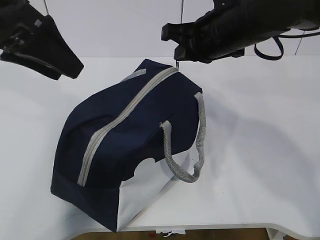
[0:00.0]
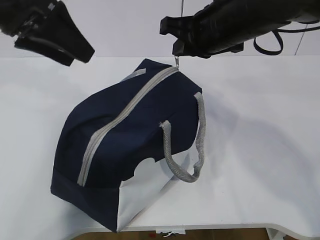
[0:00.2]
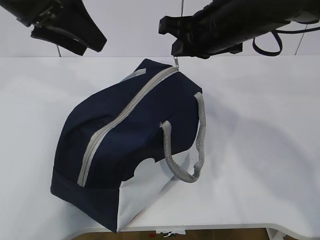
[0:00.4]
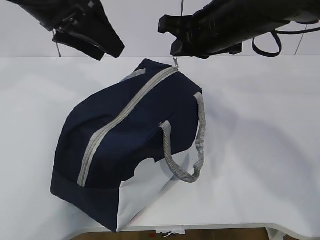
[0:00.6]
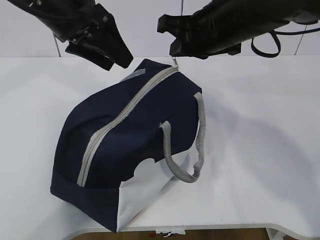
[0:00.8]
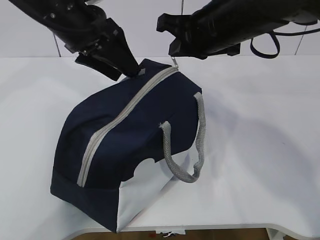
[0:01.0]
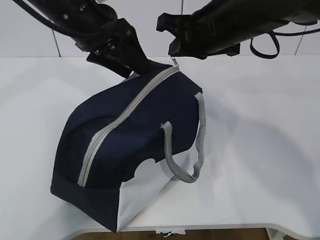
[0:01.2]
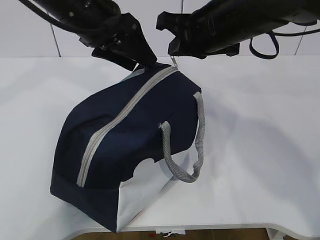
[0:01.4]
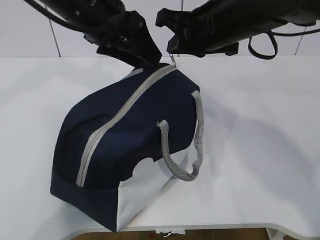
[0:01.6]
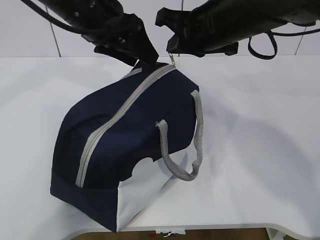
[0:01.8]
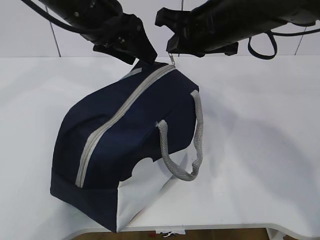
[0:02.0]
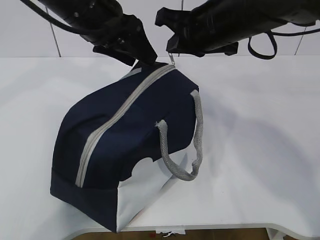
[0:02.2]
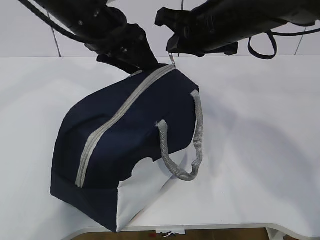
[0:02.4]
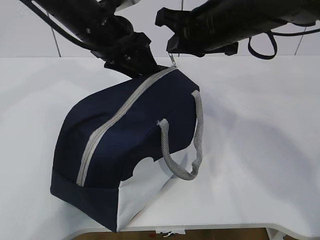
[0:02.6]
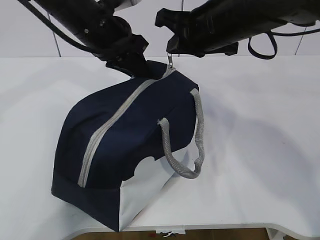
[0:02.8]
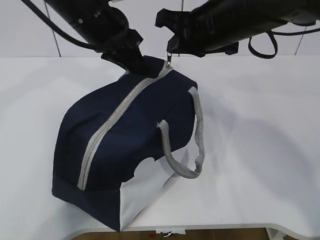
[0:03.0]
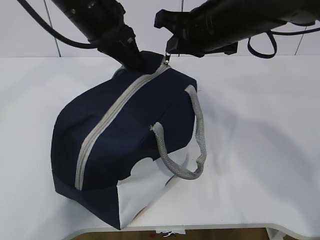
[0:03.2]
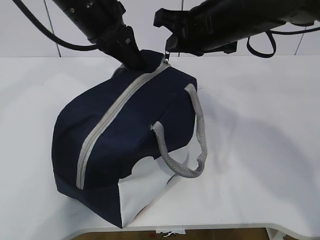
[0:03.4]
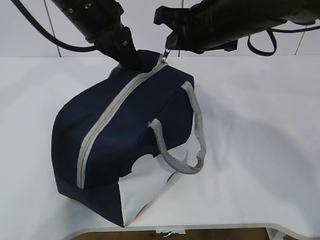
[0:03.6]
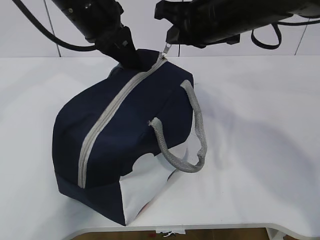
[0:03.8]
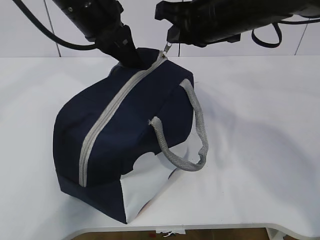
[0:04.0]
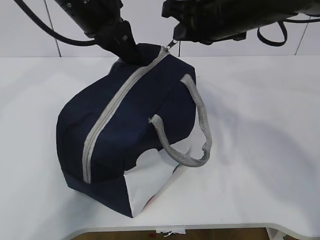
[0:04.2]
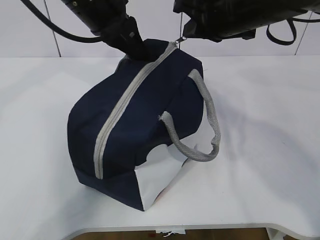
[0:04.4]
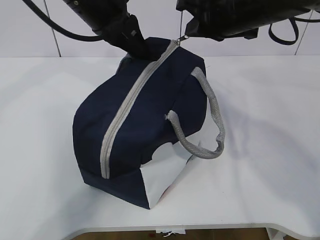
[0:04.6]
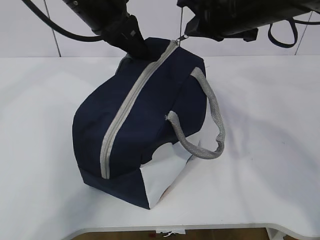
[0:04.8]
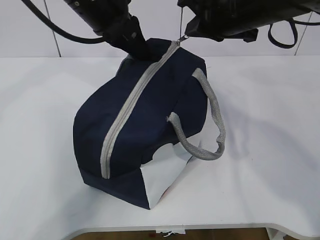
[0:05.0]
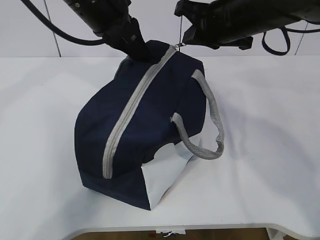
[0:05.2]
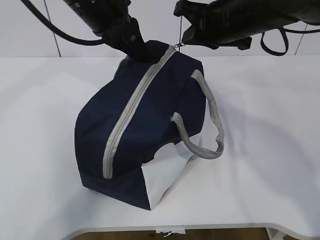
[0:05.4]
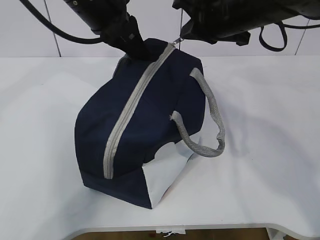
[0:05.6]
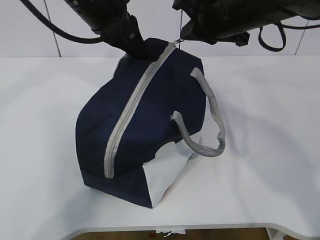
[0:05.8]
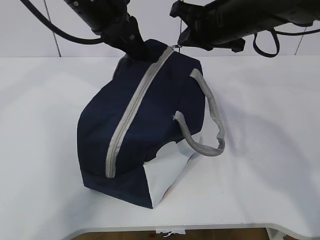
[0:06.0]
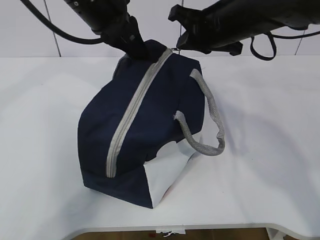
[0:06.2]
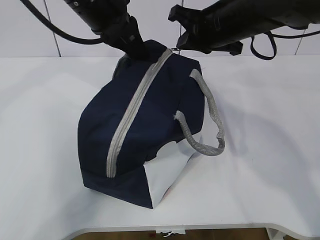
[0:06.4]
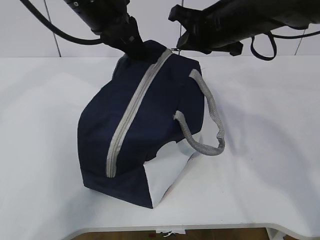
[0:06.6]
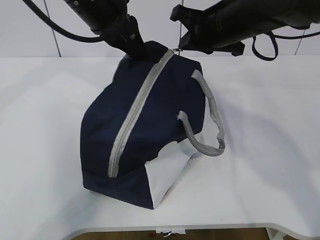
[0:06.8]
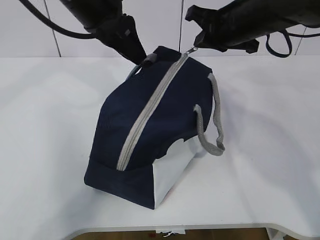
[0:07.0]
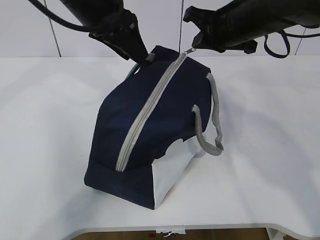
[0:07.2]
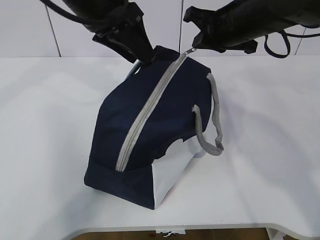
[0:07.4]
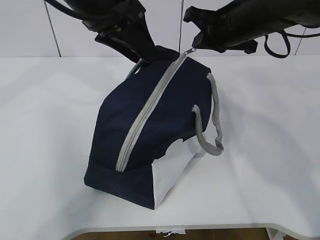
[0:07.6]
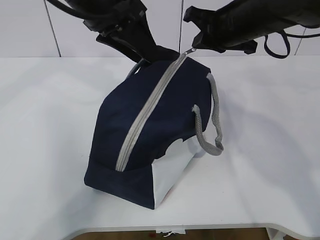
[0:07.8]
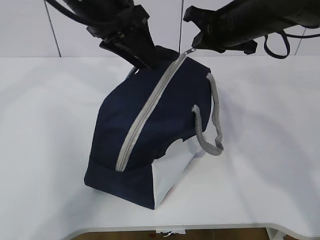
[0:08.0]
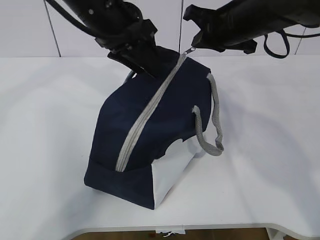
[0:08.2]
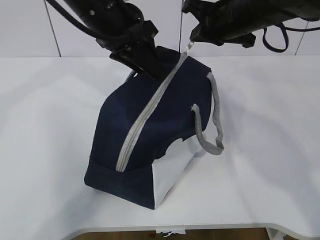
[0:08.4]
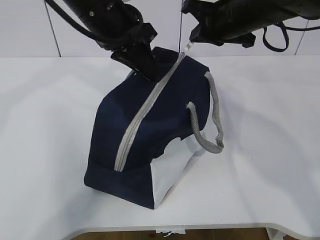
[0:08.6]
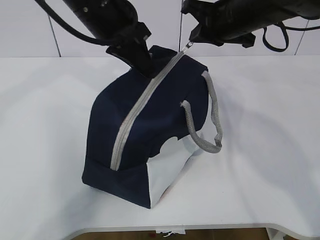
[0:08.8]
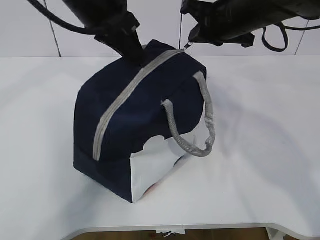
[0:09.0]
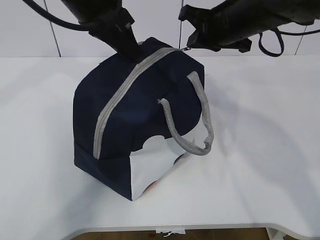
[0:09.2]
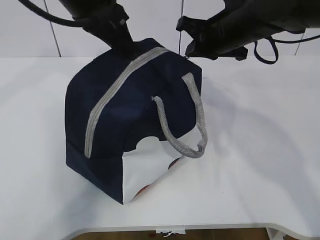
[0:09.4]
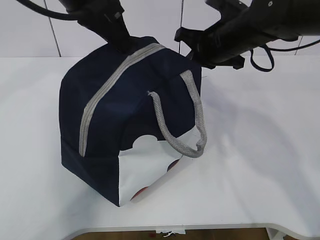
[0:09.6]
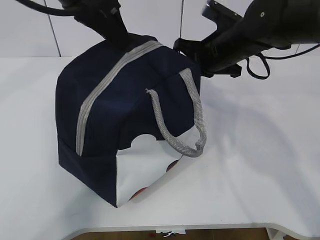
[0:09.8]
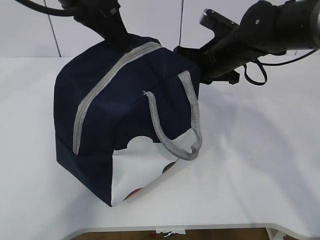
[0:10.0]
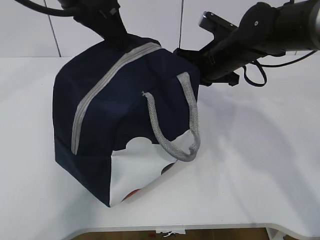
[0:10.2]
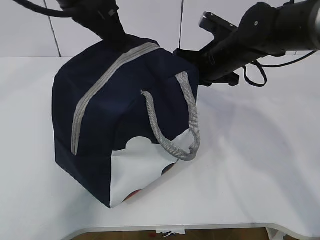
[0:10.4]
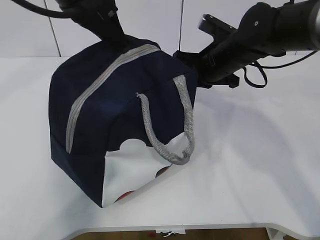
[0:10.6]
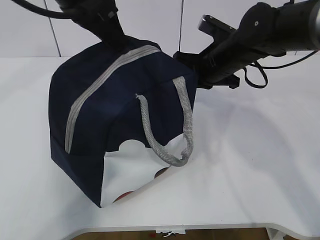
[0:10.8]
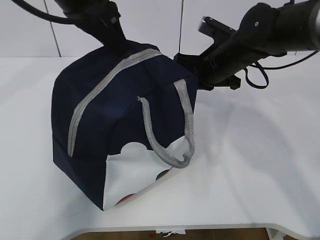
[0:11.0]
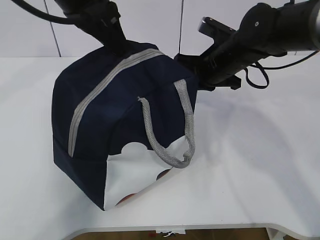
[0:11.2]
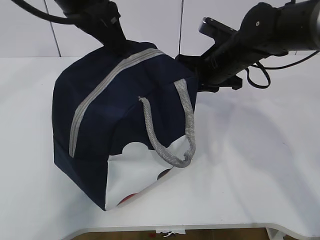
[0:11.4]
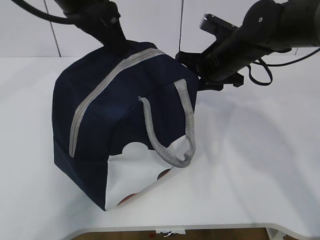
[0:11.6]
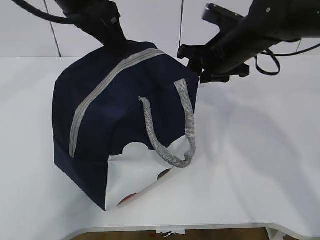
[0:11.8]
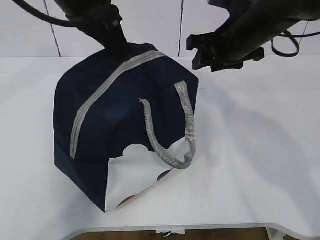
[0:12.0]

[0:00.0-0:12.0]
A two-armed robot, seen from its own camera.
Step, 0:00.0 to 0:00.8: Grab the lunch bag with your left hand.
0:00.0 to 0:01.6: The left gripper goes about 10 cm to the right and forward.
0:01.6 to 0:03.0: The left gripper closes its fingers.
0:04.4 to 0:06.0: The grippers stay close to where they were, moving slightly.
0:06.0 to 0:07.6: The left gripper opens its fingers.
0:07.6 to 0:09.0: The left gripper closes up.
0:09.0 to 0:10.4: The right gripper is displaced downward by about 10 cm.
0:10.4 to 0:12.0: The right gripper is displaced upward by approximately 5 cm, and opens up.

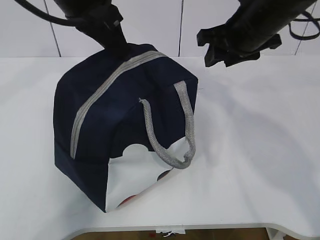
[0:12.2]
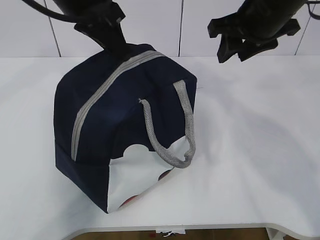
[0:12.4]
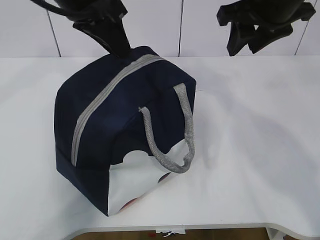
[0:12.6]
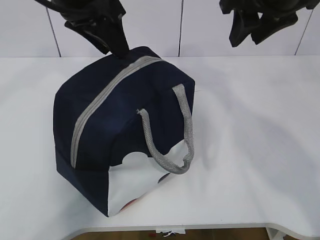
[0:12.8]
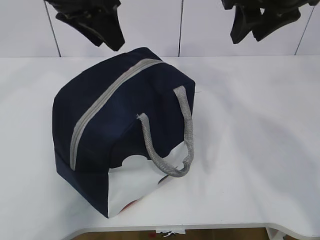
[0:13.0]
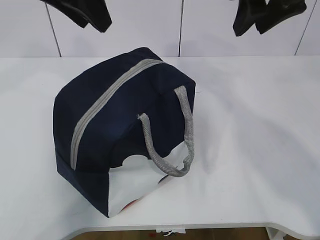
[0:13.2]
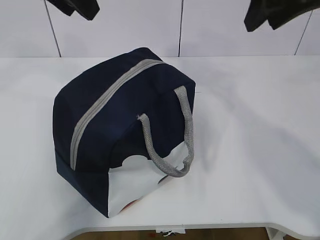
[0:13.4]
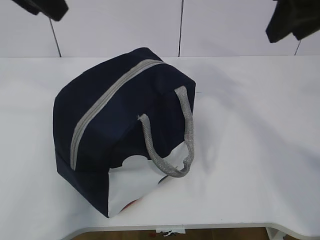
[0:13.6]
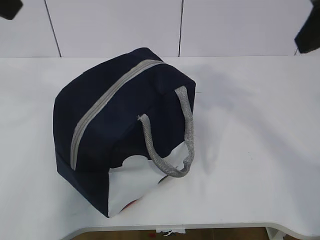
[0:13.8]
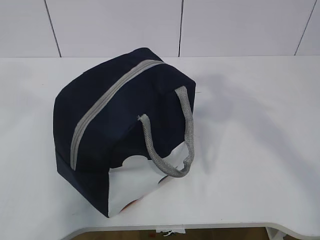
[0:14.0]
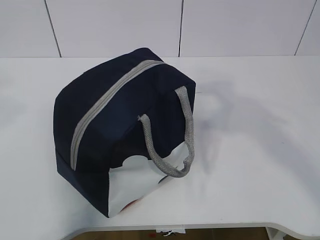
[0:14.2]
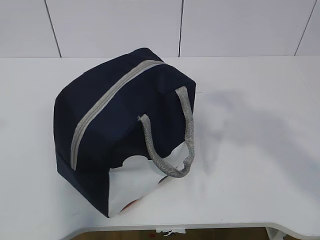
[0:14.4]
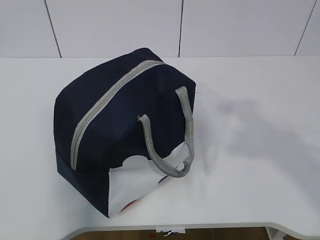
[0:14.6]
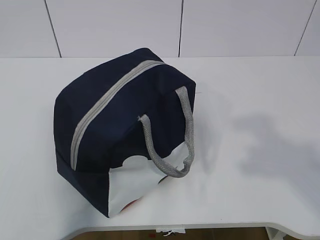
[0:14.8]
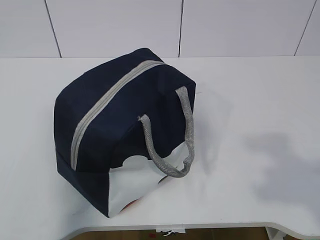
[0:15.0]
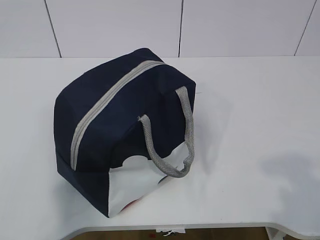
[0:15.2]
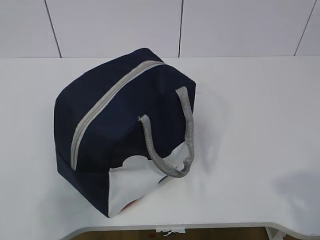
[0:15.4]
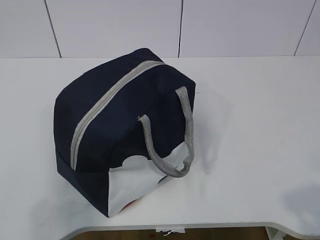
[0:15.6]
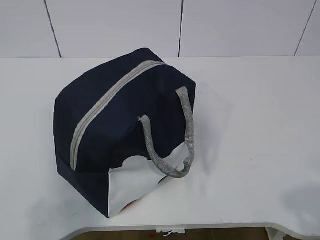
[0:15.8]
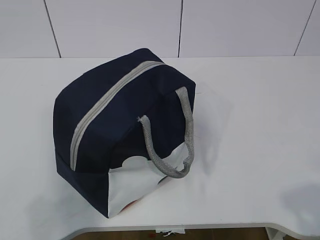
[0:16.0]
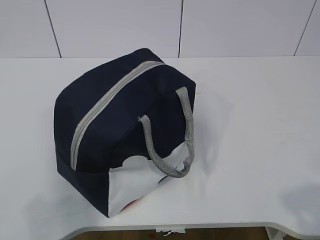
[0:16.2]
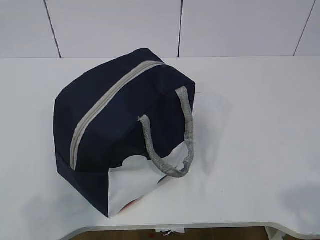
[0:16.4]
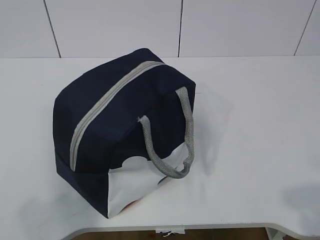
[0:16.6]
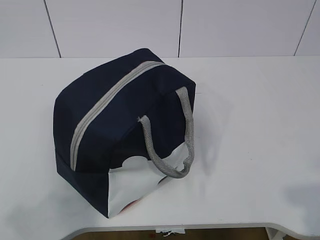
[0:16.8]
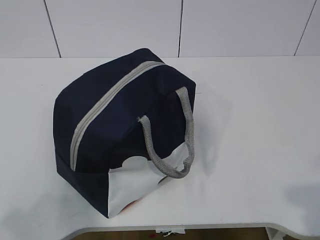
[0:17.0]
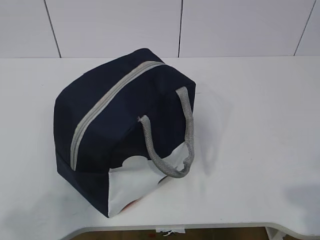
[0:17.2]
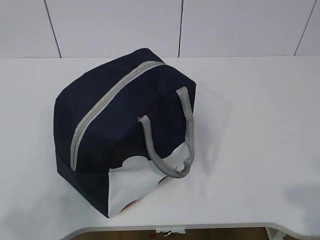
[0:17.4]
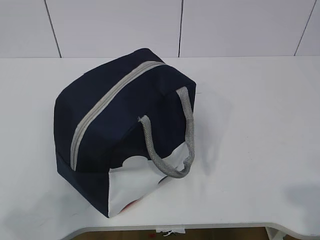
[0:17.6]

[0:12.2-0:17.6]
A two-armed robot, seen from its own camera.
0:12.2 to 0:13.6: The right gripper is displaced upward and backward by some 15 cm. Meanwhile the left gripper is displaced backward, upward and to the left by roughly 10 cm, and opens its fingers.
0:13.6 to 0:15.0: The right gripper heads backward, covering some 25 cm. Meanwhile the left gripper goes approximately 30 cm backward and to the left.
0:15.0 to 0:16.2: The two grippers go roughly 10 cm downward.

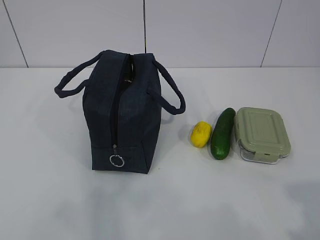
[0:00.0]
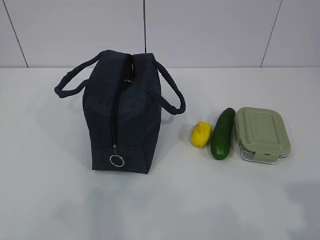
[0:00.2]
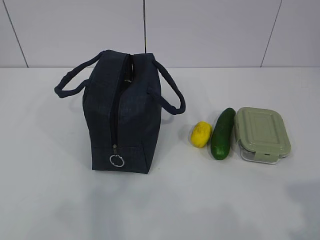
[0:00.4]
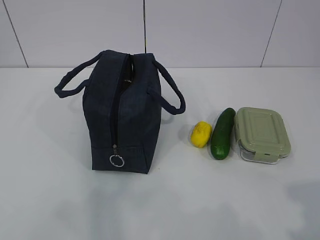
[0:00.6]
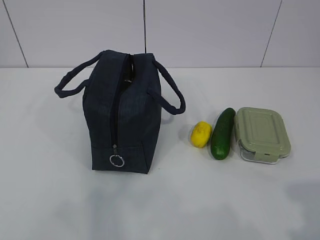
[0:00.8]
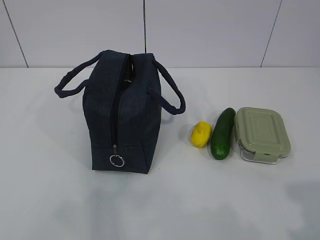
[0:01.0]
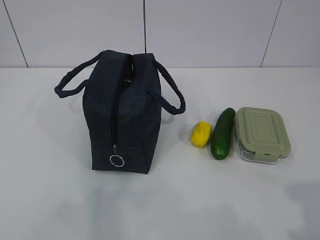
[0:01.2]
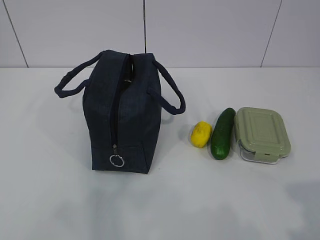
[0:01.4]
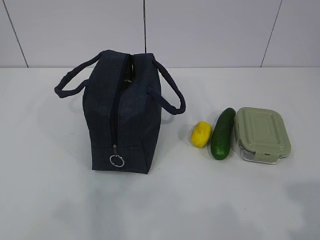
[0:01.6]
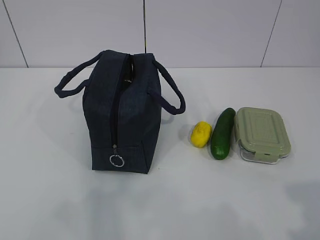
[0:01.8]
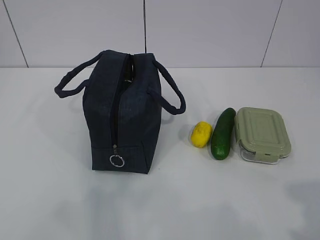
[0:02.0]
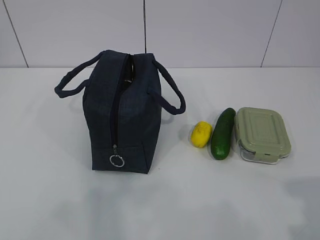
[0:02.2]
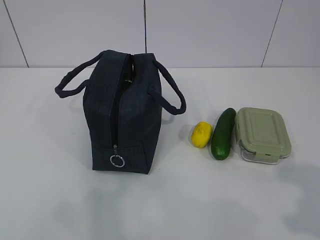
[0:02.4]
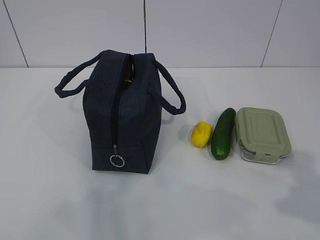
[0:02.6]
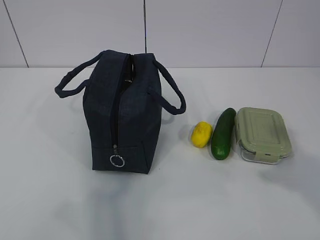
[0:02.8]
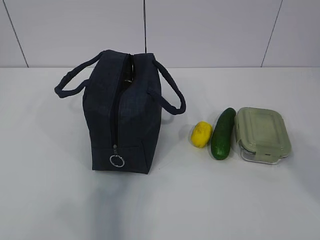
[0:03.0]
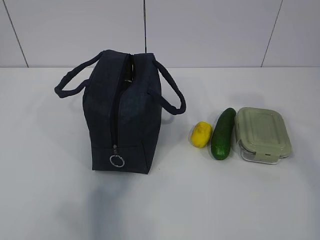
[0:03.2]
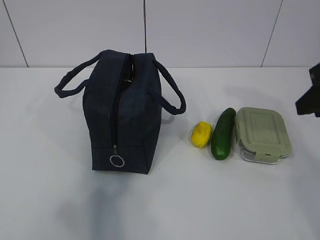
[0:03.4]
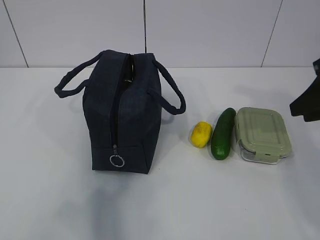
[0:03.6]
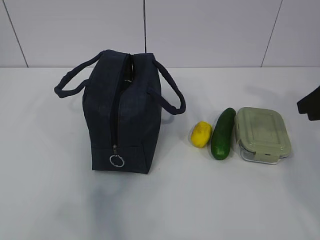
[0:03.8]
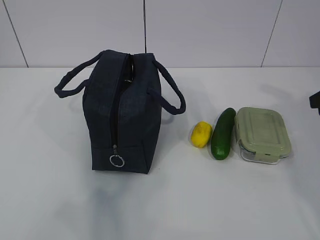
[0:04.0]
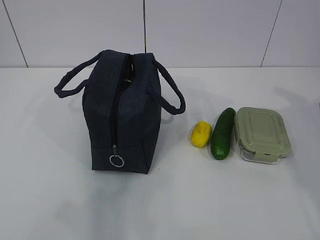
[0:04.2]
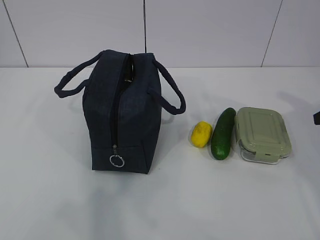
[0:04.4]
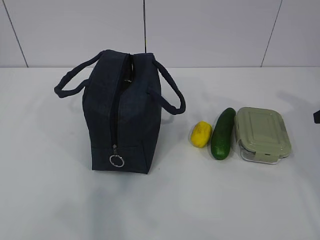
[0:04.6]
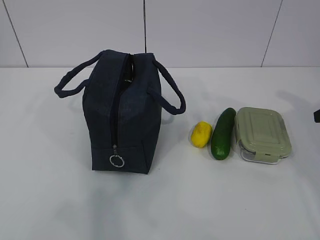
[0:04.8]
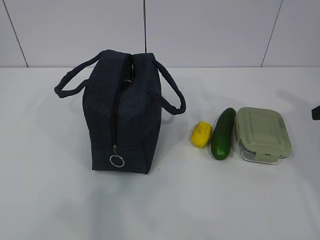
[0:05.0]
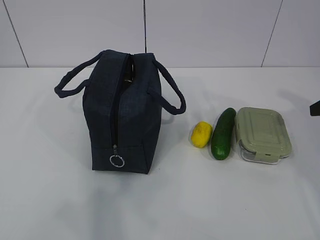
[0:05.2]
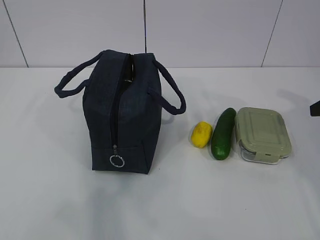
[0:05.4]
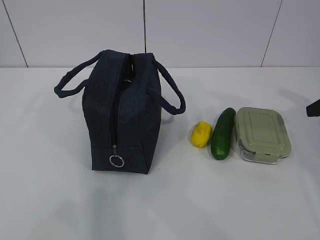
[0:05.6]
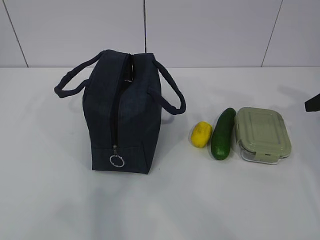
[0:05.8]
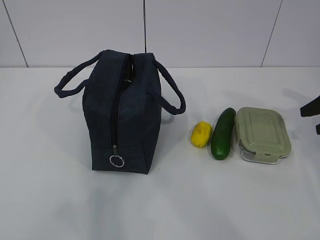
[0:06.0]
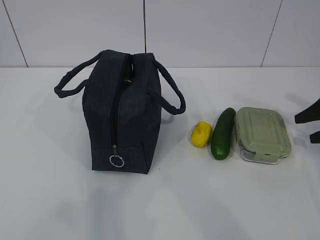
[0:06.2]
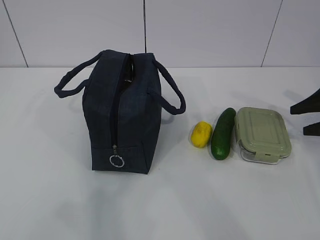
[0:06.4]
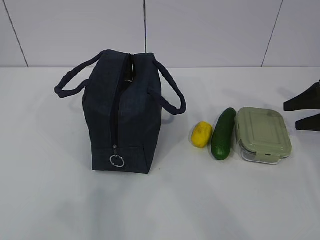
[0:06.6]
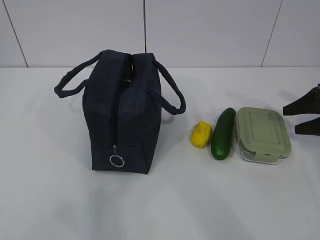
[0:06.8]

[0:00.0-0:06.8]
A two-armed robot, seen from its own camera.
0:01.4 to 0:02.8: The right gripper is displaced forward by about 10 cm.
0:05.4 to 0:06.8: The right gripper heads downward and forward, covering approximately 10 cm.
